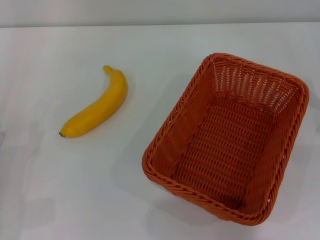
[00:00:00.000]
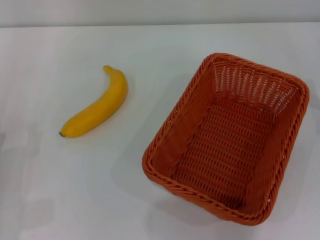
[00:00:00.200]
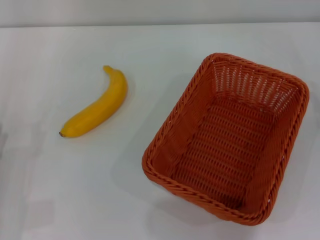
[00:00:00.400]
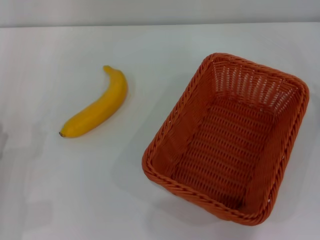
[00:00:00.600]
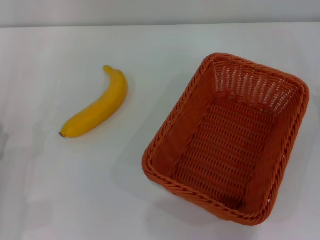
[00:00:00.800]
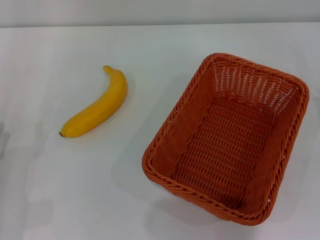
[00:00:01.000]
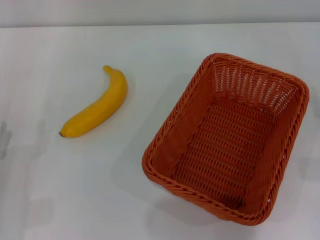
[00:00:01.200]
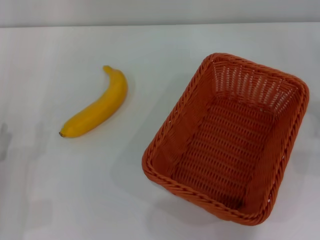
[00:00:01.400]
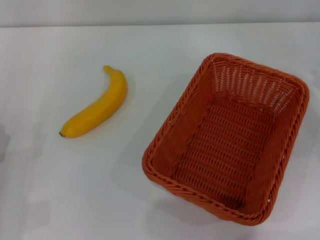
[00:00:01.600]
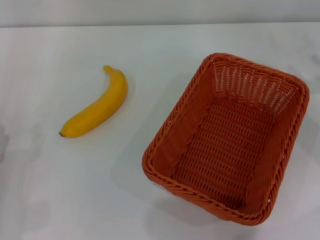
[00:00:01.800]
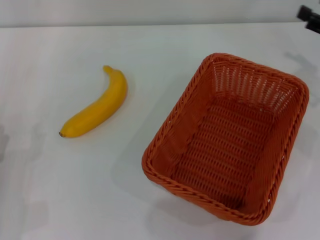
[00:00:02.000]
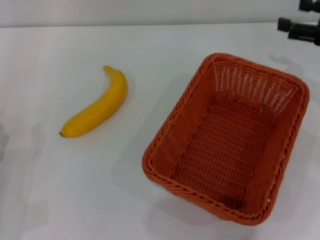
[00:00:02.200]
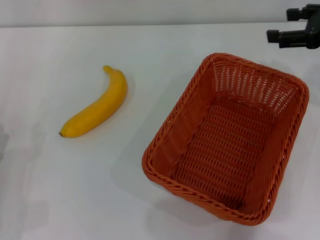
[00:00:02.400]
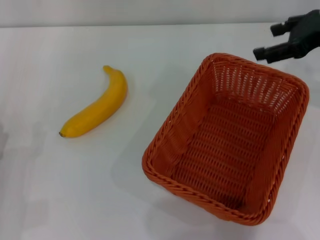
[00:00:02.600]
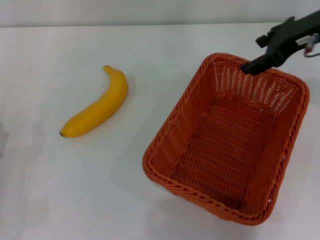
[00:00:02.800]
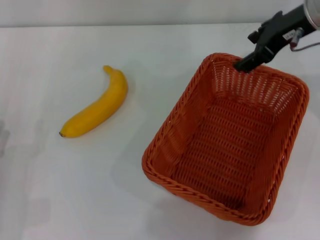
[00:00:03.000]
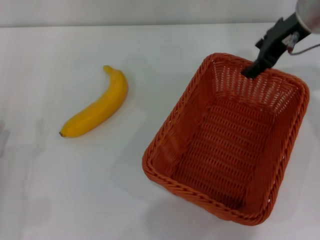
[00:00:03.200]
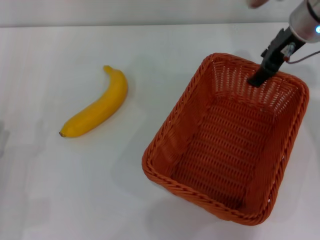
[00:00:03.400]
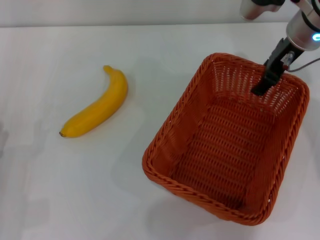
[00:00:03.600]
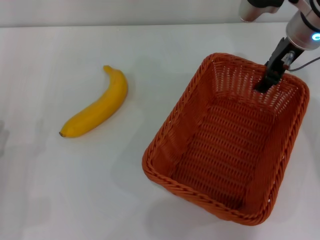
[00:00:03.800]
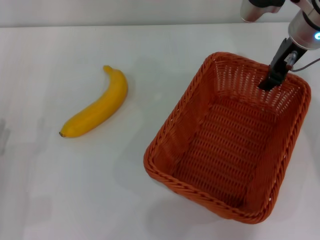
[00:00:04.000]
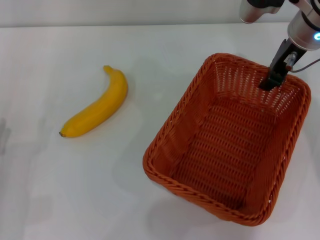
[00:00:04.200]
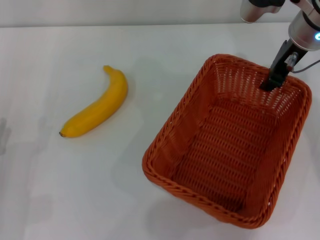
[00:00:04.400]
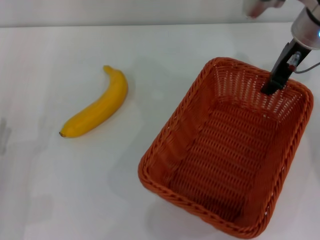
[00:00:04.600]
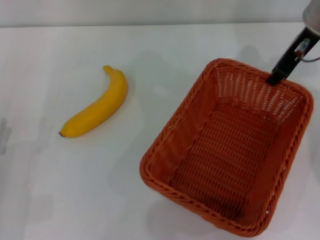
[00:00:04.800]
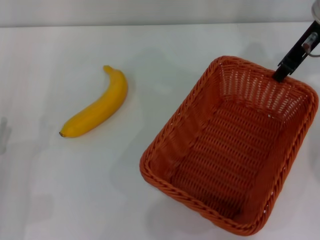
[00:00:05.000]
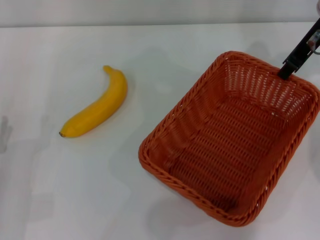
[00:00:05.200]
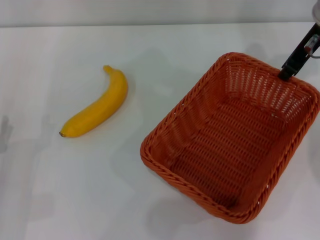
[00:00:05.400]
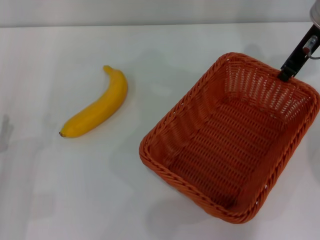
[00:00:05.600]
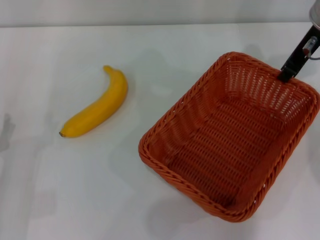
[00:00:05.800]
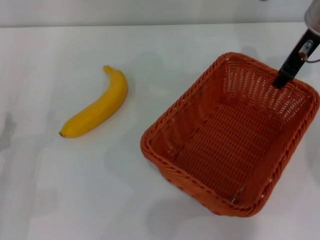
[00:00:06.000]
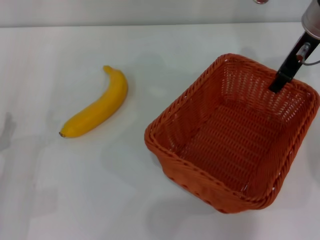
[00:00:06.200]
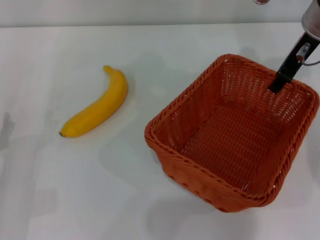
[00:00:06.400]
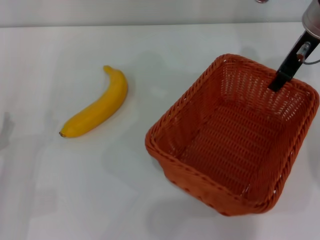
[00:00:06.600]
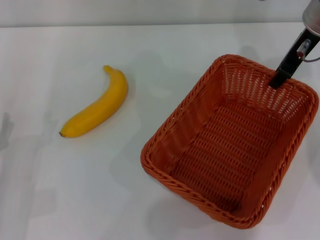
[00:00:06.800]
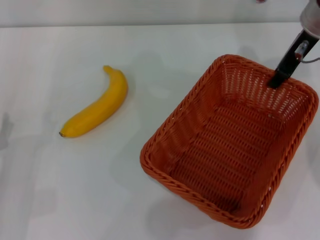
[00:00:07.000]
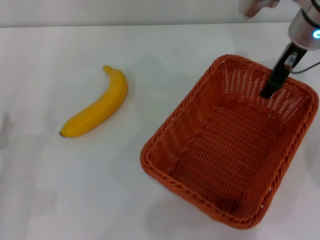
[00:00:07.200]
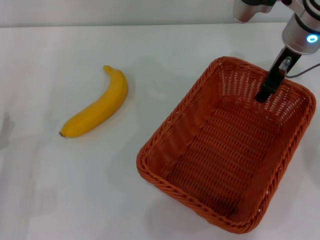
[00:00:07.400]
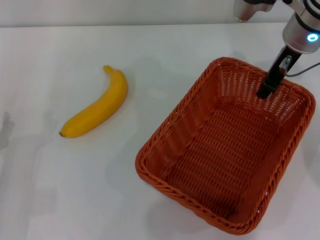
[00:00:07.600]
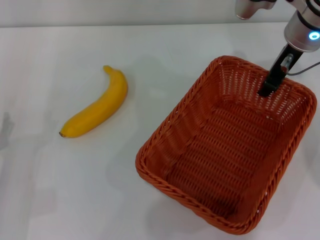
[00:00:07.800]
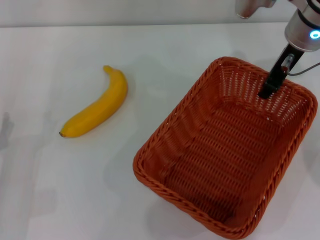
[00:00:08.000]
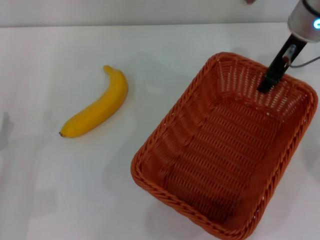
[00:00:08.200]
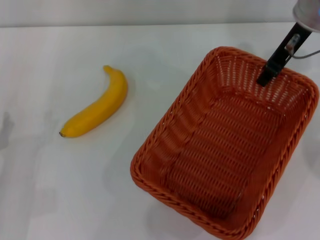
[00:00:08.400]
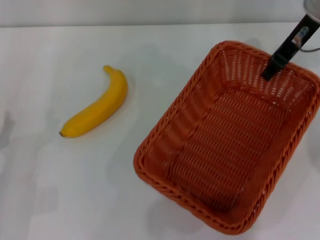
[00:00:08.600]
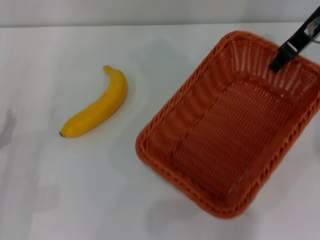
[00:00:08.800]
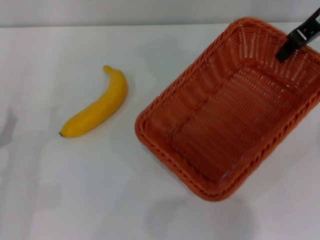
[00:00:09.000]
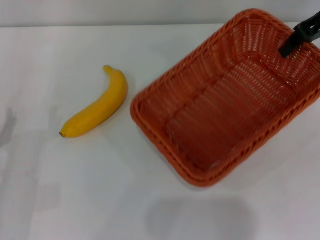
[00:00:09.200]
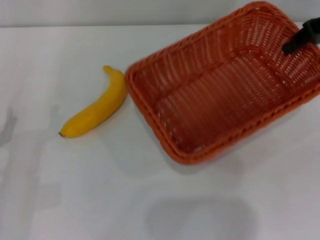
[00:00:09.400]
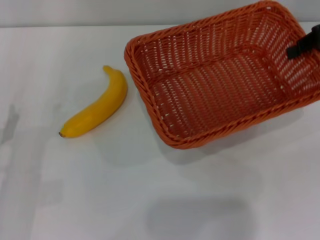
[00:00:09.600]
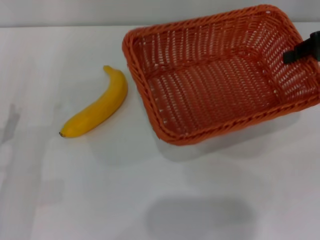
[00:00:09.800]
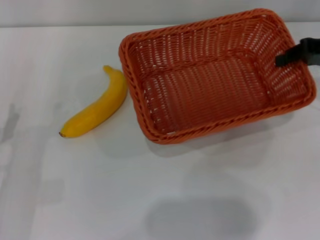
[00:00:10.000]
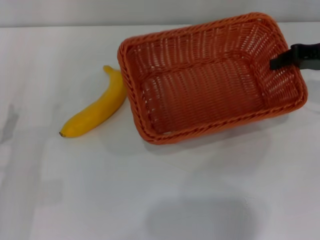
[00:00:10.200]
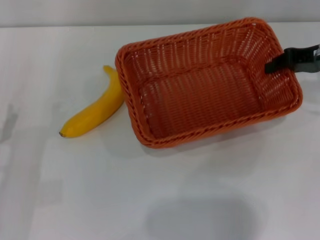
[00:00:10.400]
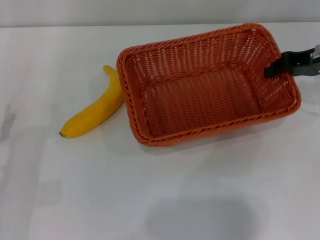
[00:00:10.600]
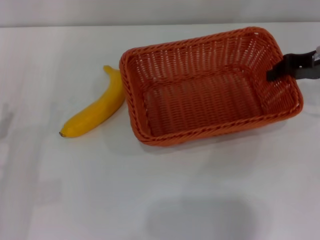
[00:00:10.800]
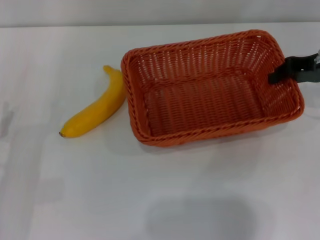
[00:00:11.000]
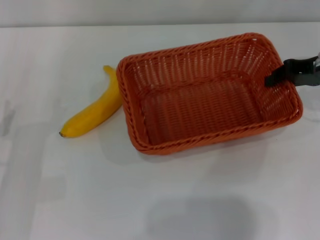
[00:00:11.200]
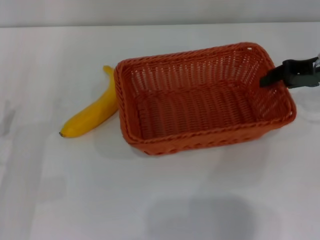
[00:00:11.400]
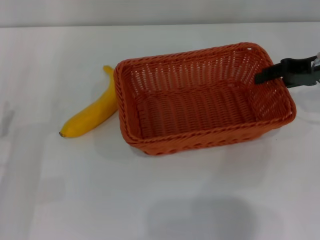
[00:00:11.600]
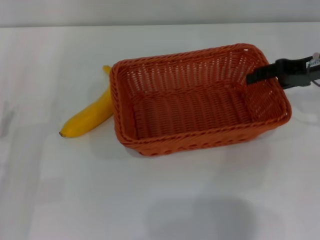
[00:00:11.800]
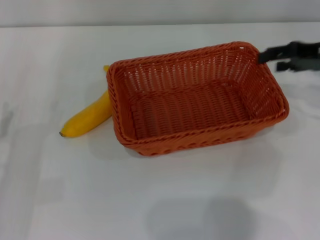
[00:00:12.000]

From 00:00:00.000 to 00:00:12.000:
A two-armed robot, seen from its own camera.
Step, from 00:00:00.000 to 00:00:08.800: Pick up the light basket with the right gripper.
From 00:00:01.600 to 00:00:03.000: The right gripper shifts about 25 cm to the left, upward and forward.
From 00:00:03.000 to 00:00:04.400: The right gripper changes place by approximately 5 cm, and closes.
From 00:00:04.400 to 00:00:06.000: The grippers stay close to where they were, moving slightly.
From 00:00:06.000 to 00:00:07.600: The right gripper opens its fingers.
From 00:00:07.600 to 00:00:09.000: The right gripper heads to the right and upward, covering about 10 cm, and closes.
From 00:00:09.000 to 00:00:10.400: The right gripper shifts approximately 10 cm downward.
From 00:00:10.400 to 00:00:12.000: The right gripper opens its fingers.

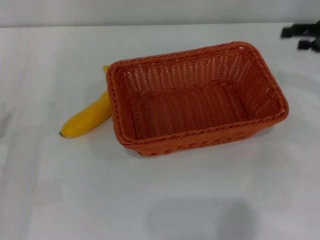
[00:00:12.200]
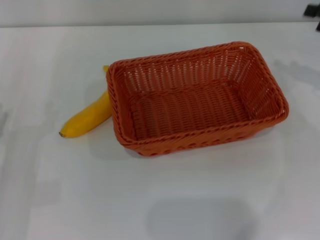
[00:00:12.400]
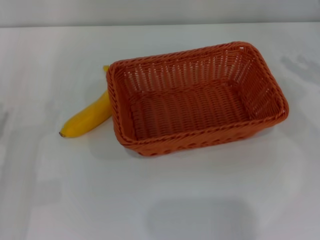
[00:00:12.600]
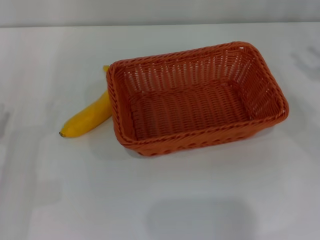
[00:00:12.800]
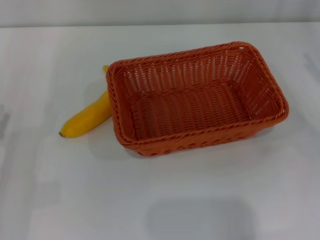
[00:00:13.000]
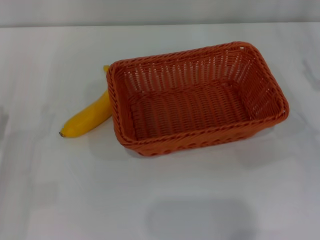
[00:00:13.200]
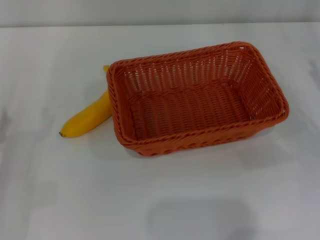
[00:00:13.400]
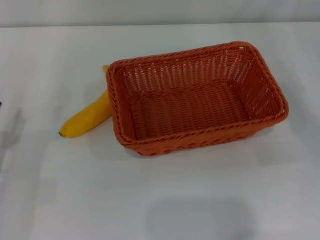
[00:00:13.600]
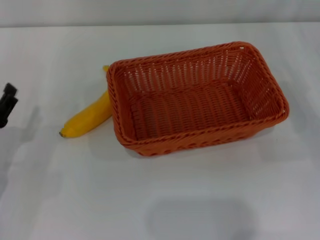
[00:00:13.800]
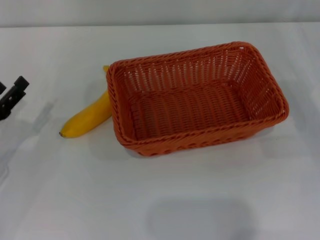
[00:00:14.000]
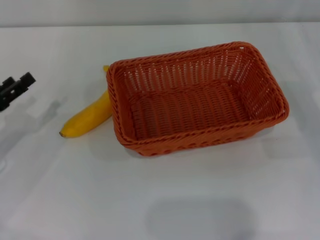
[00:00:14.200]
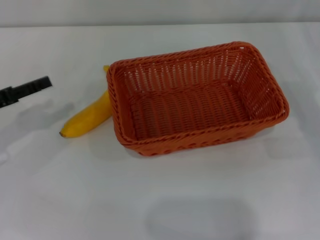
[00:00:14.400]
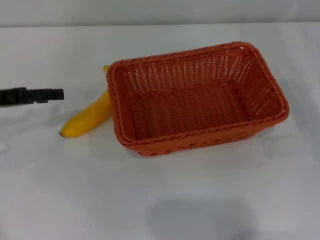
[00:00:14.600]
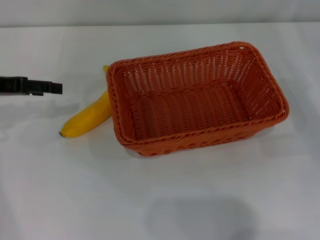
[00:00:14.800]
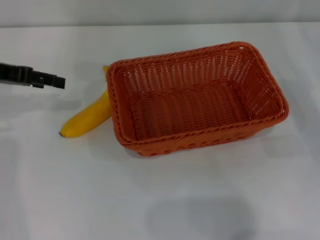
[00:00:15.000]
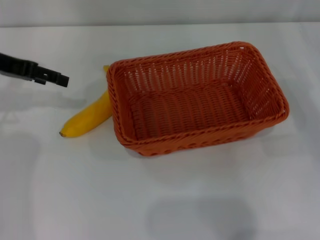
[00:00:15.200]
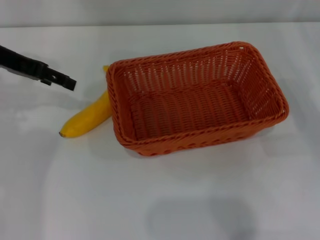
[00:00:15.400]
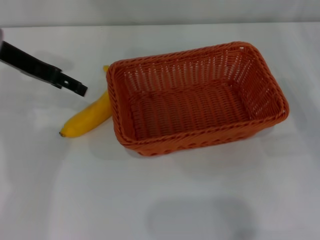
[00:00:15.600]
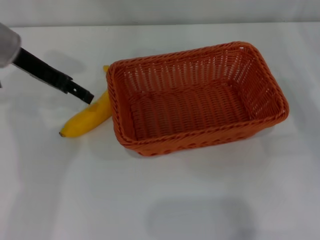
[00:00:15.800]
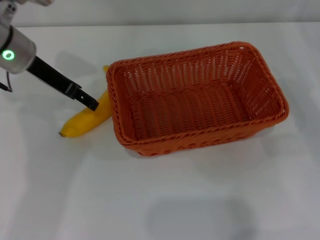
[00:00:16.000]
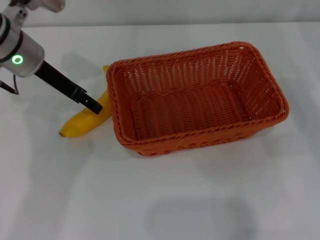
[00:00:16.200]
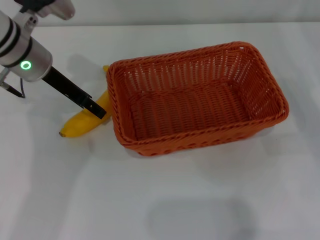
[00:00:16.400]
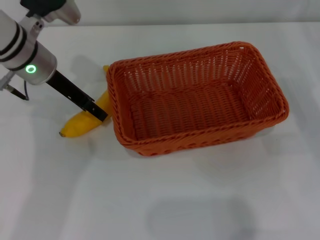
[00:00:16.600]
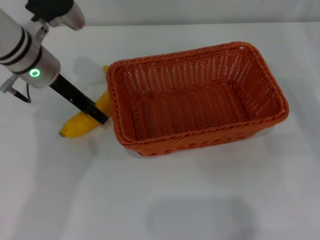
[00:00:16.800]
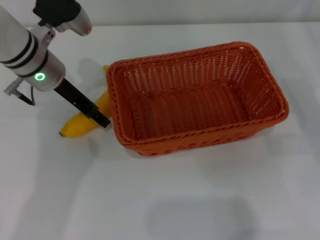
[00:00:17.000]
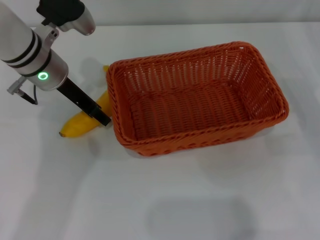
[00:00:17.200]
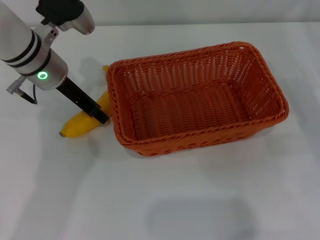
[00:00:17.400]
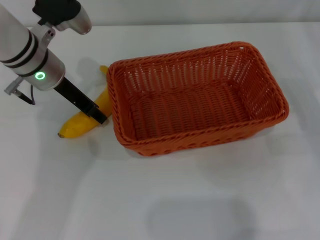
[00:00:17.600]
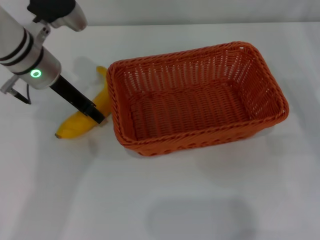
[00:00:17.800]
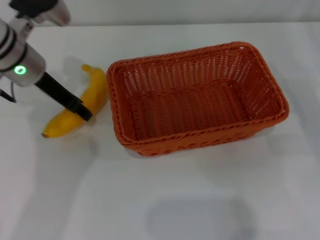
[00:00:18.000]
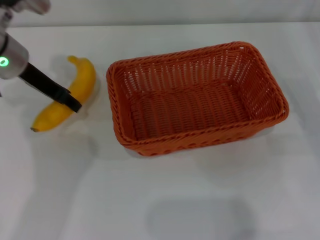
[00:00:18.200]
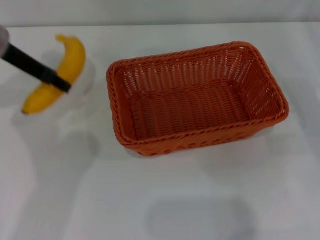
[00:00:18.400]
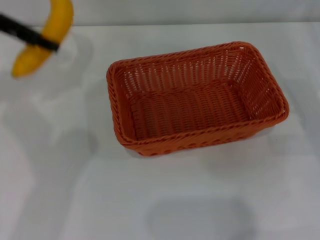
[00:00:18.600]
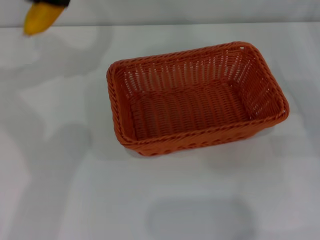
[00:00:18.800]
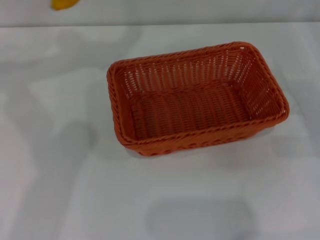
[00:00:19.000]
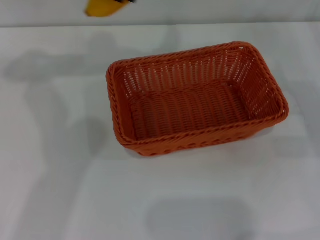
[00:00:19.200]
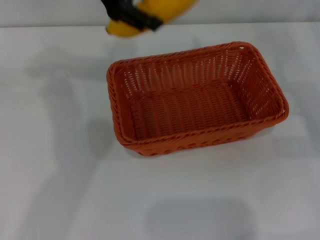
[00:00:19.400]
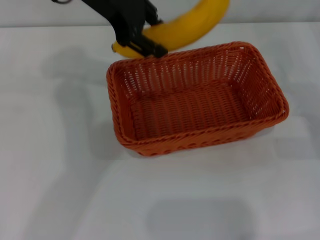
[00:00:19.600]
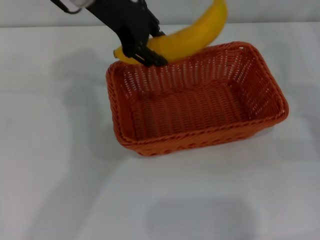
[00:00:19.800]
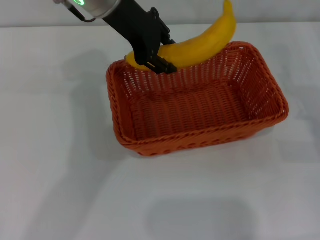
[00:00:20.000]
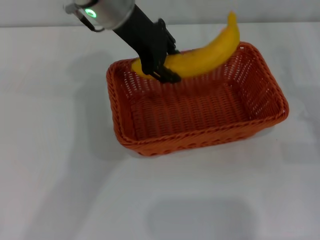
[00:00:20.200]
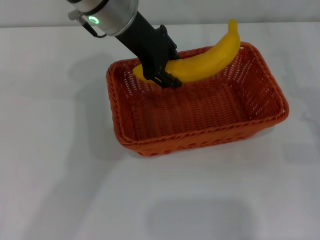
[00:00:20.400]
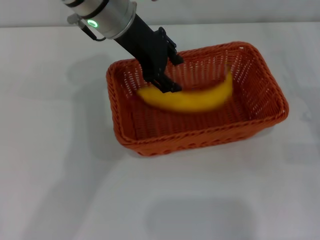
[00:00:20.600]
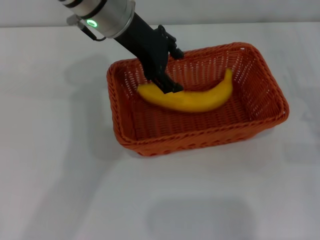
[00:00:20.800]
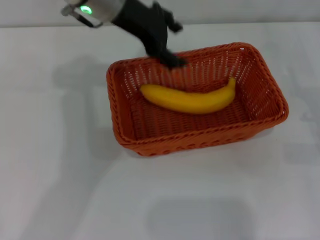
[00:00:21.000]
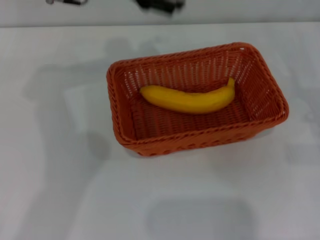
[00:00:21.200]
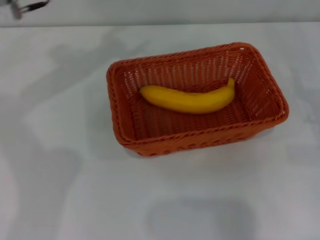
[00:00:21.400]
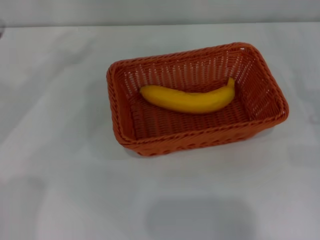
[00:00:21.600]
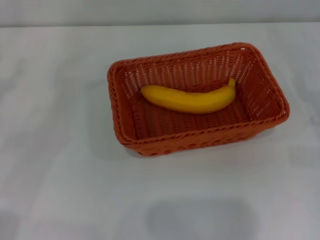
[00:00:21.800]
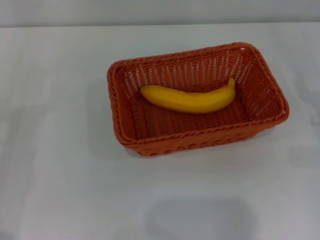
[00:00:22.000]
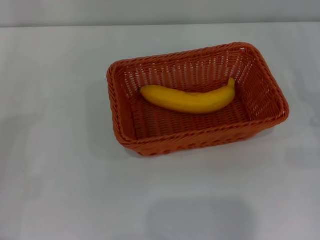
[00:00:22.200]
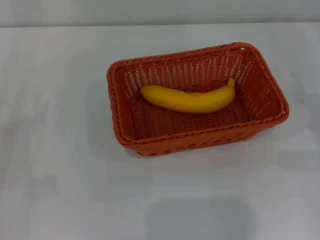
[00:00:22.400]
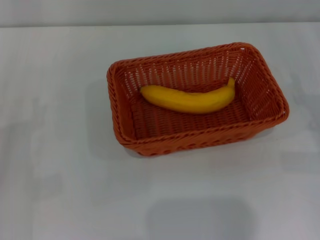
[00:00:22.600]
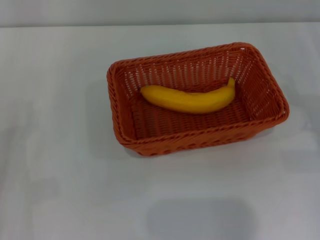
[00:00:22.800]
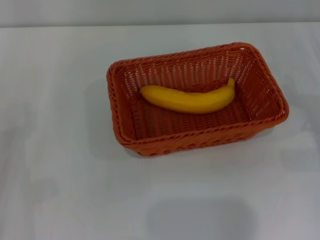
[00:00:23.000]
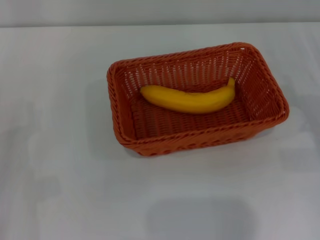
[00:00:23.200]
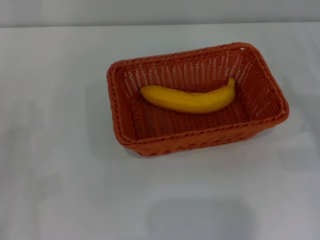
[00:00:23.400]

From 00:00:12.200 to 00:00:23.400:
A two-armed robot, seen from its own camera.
Step, from 00:00:12.400 to 00:00:18.400: Pick up the banana with the left gripper.
Step, from 00:00:18.600 to 00:00:20.800: Place the banana into the light basket with the left gripper.
From 00:00:12.200 to 00:00:13.800: The right gripper is displaced downward and backward by about 15 cm.
From 00:00:13.800 to 00:00:15.400: The left gripper moves forward and upward, some 25 cm.
From 00:00:15.400 to 00:00:17.000: The left gripper goes approximately 10 cm to the right and downward.
From 00:00:17.000 to 00:00:18.600: The left gripper goes some 15 cm upward and to the left, and closes up.
From 00:00:18.600 to 00:00:20.200: The left gripper shifts about 20 cm to the right.
From 00:00:20.200 to 00:00:21.800: The left gripper shifts approximately 30 cm to the left, downward and backward, and opens its fingers.
